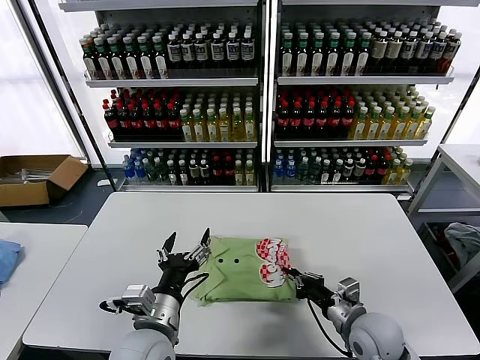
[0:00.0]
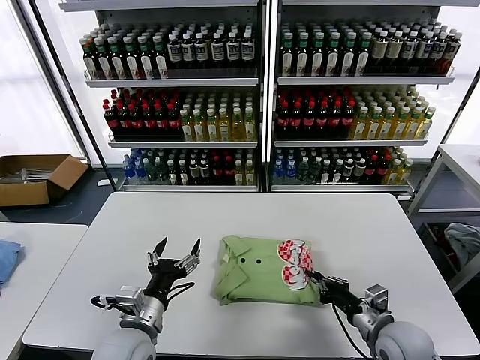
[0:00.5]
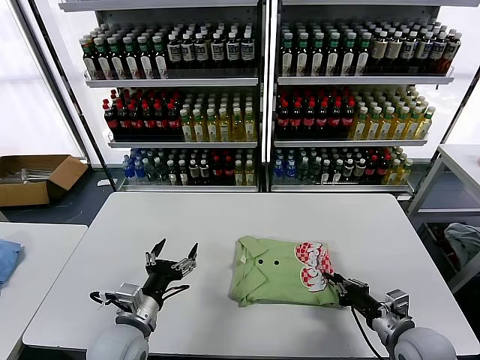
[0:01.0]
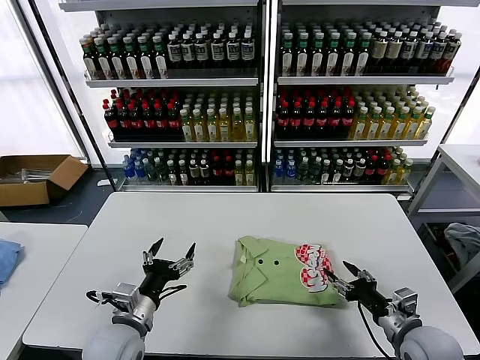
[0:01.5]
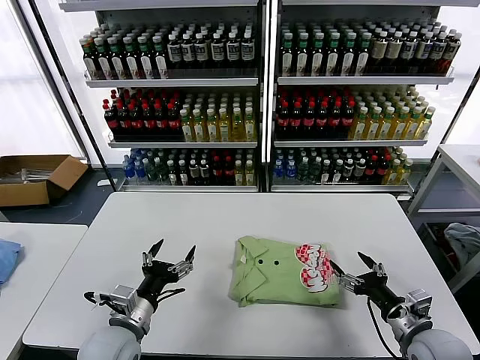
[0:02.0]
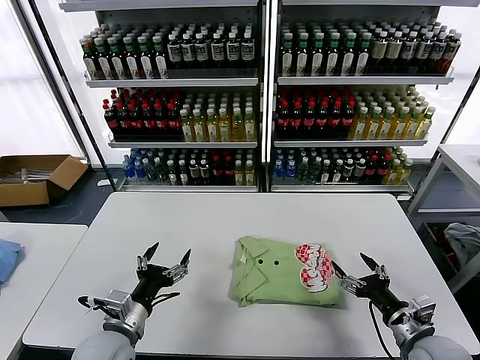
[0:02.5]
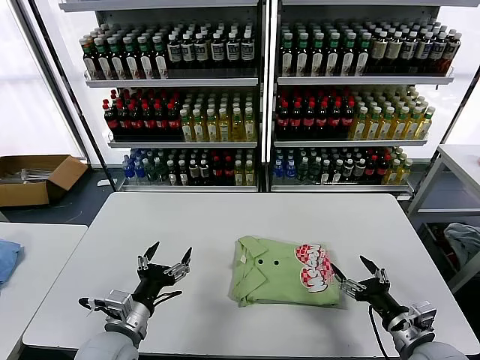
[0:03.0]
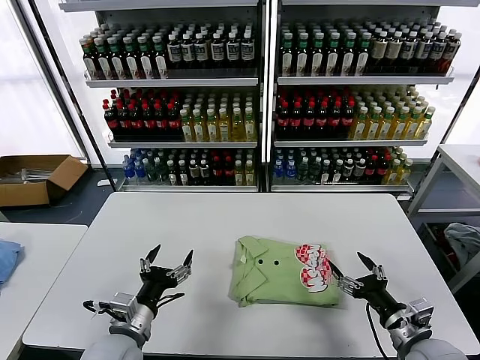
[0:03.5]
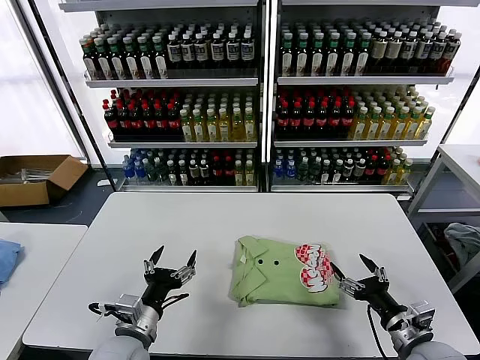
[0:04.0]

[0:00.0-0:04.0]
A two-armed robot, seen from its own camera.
Task of the whole recording: fold and organize the clothes.
0:00.0 to 0:02.0: The right gripper shifts approximately 10 cm to the right, and opens. Meanwhile the left gripper travels to the left by approximately 10 cm.
0:02.0 to 0:04.0: The grippers stay close to where they were, moving slightly.

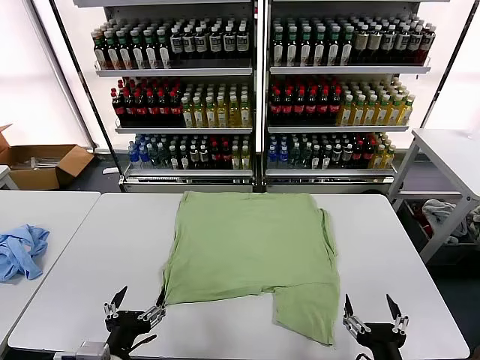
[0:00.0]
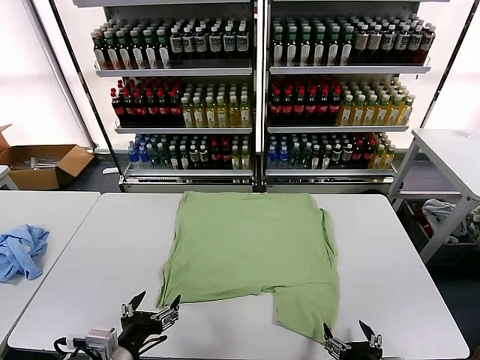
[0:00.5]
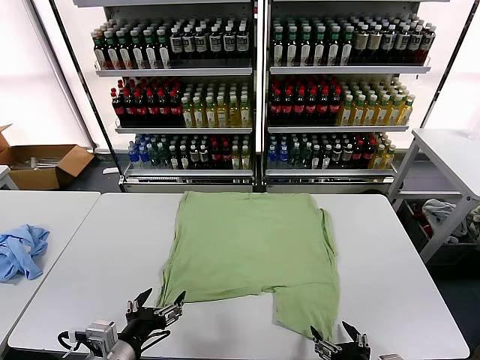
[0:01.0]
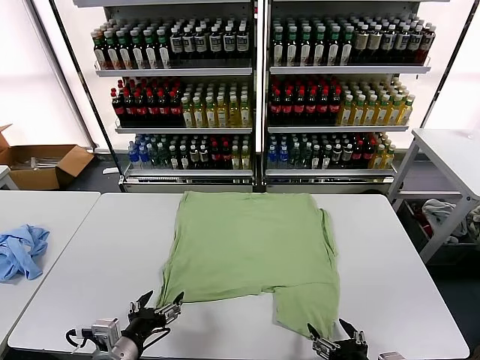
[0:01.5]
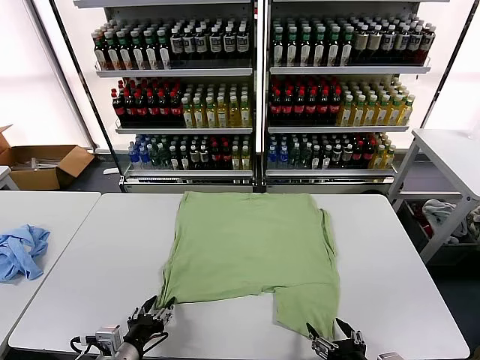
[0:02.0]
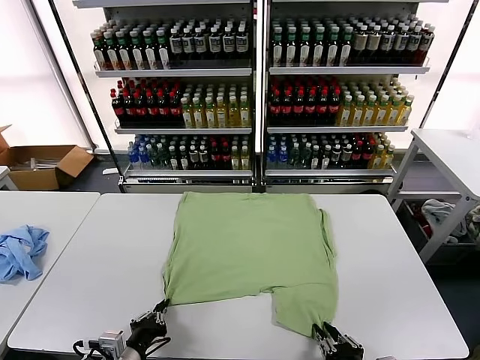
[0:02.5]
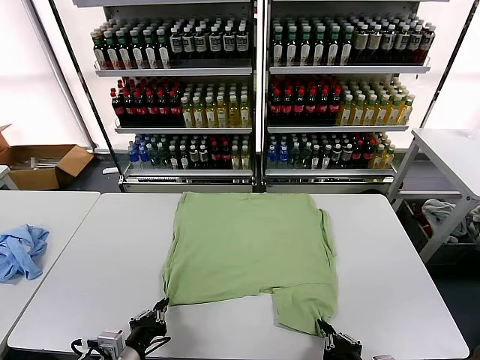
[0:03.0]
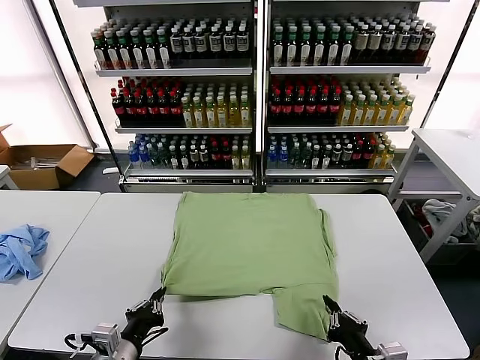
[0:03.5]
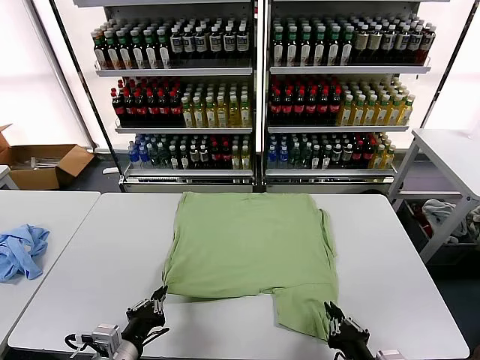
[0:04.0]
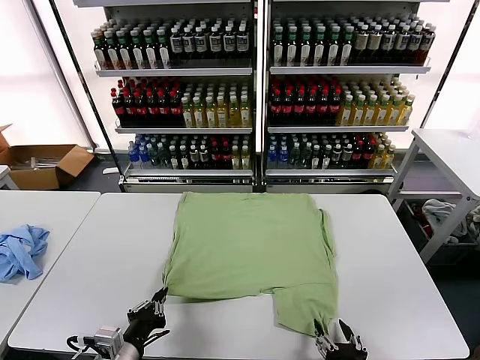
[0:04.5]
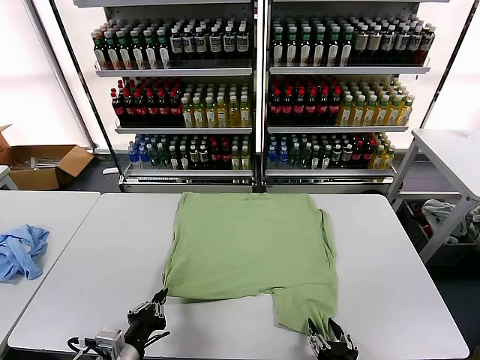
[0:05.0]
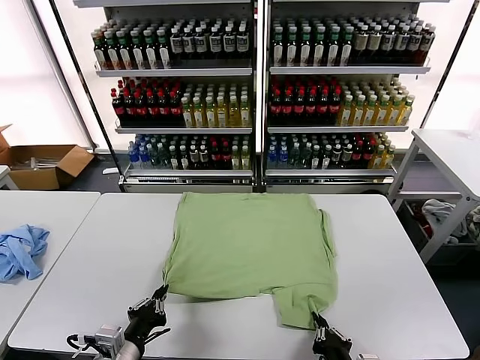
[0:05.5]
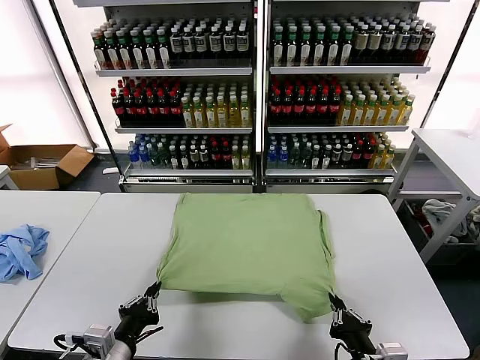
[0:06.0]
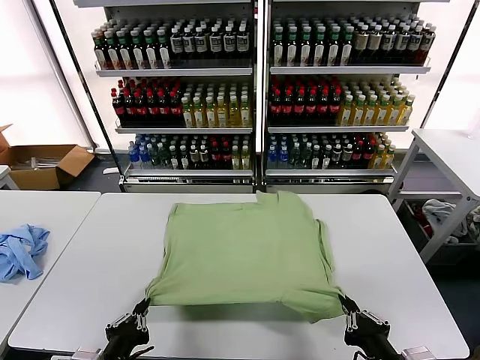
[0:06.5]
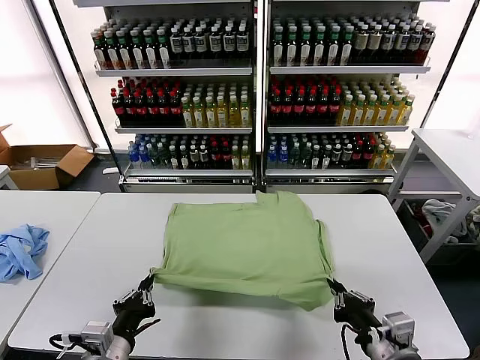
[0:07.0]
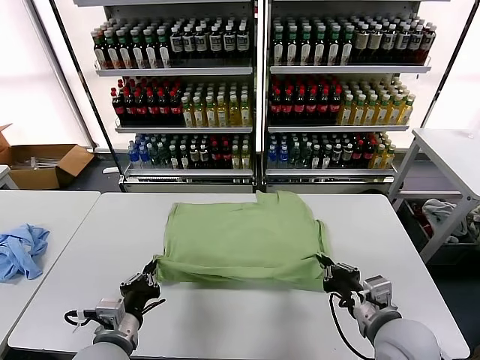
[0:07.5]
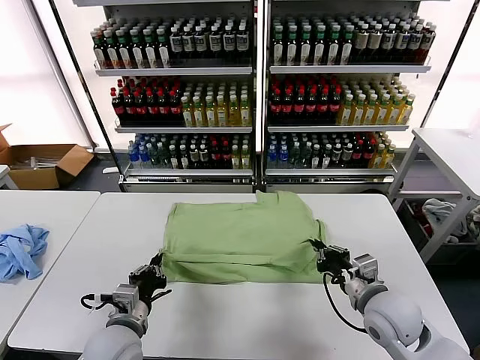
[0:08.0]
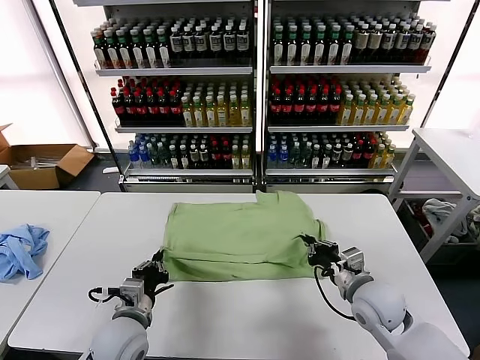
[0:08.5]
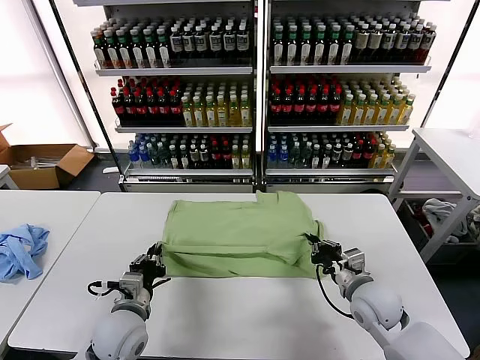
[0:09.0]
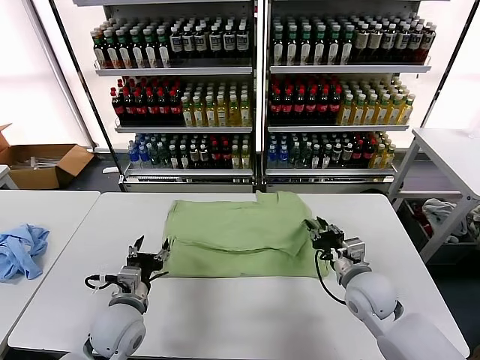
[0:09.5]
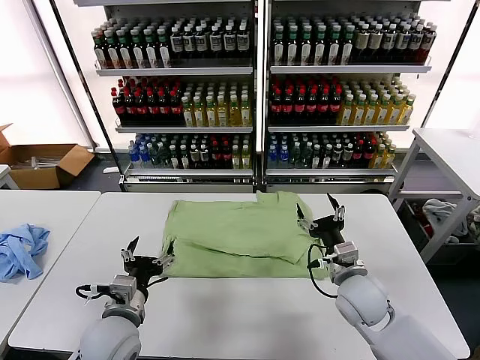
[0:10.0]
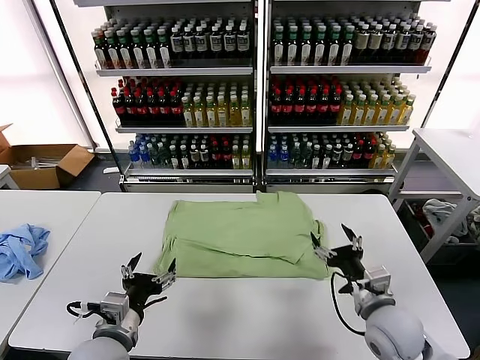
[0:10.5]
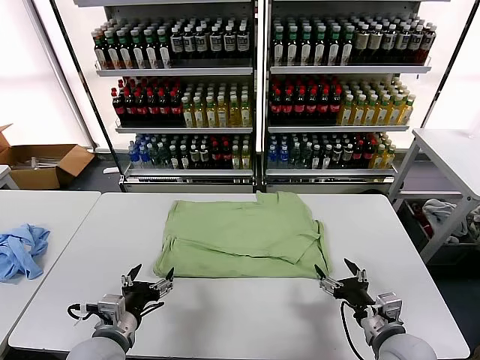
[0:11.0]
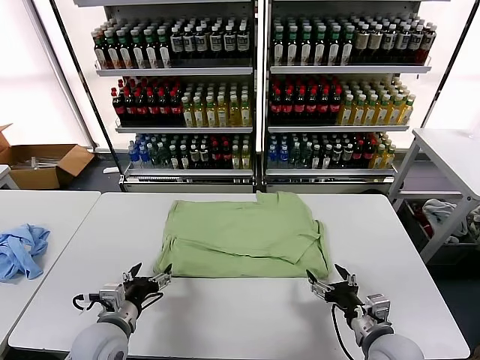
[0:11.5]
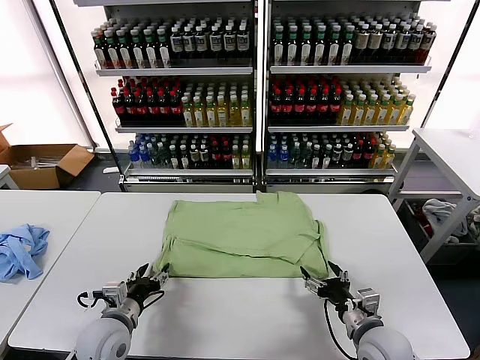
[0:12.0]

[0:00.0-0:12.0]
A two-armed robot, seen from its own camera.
Task of the whole recording: fold and organize the clothes.
Step, 0:00.0 to 0:02.5: use both grippers simultaneously to clamp the lower edge of the clothing fabric.
Step, 0:03.0 to 0:09.5: use both grippers to drag the lower edge of the fabric forward and fold it over the upper edge.
0:02.0 to 0:04.0: The left gripper closes up. Meanwhile the right gripper closes up.
0:04.0 to 0:06.0: The right gripper opens, then closes once more.
0:06.0 to 0:08.0: The left gripper moves forward, about 10 cm. The right gripper travels forward by some 15 cm.
0:08.0 to 0:10.0: The left gripper opens up. Meanwhile the right gripper changes place by some 5 cm, and opens.
0:10.0 to 0:12.0: The left gripper moves downward, approximately 5 cm. The right gripper moves backward and downward, approximately 10 cm.

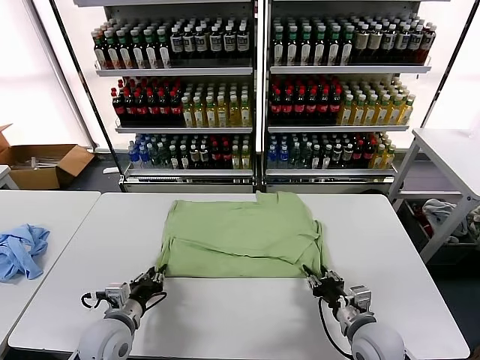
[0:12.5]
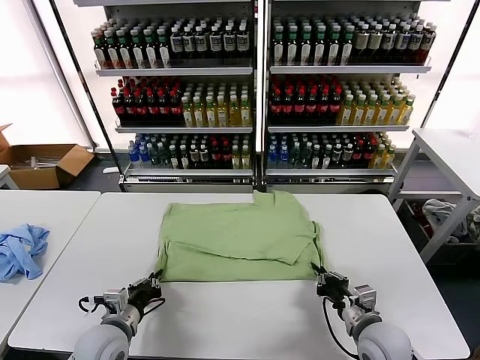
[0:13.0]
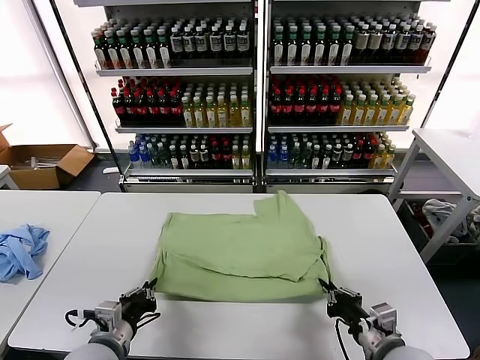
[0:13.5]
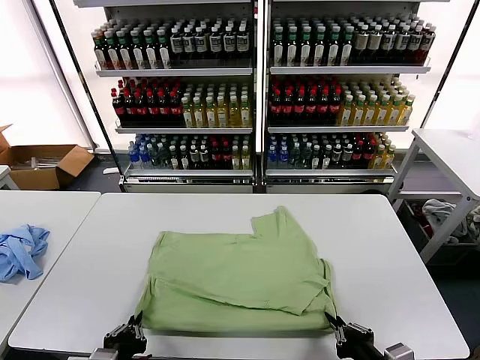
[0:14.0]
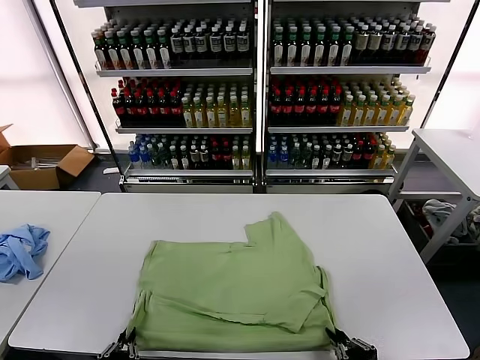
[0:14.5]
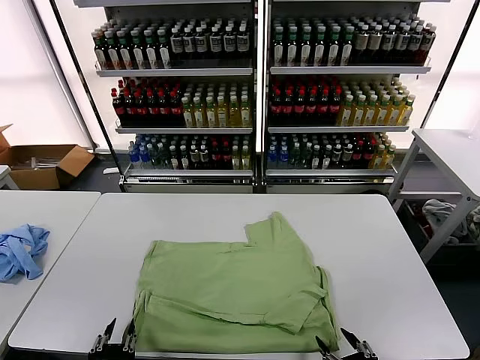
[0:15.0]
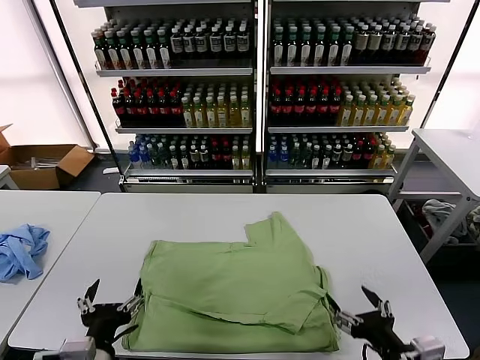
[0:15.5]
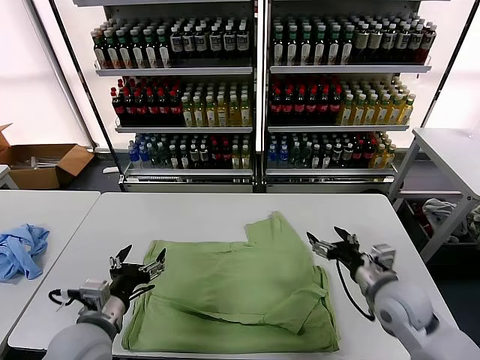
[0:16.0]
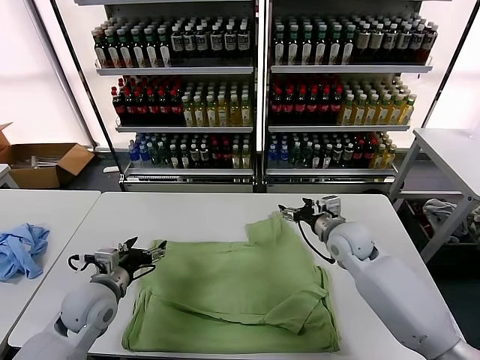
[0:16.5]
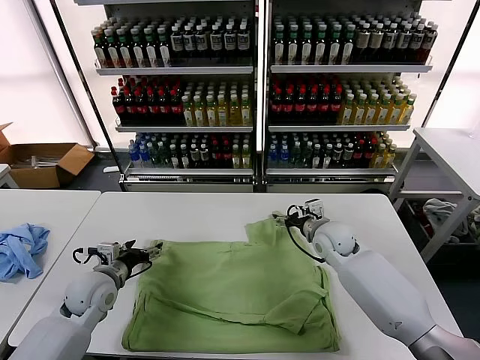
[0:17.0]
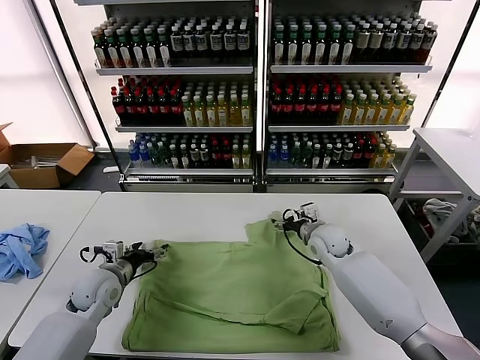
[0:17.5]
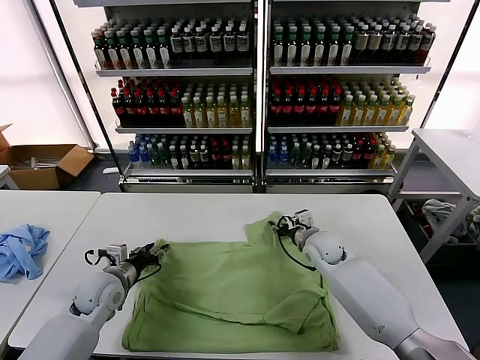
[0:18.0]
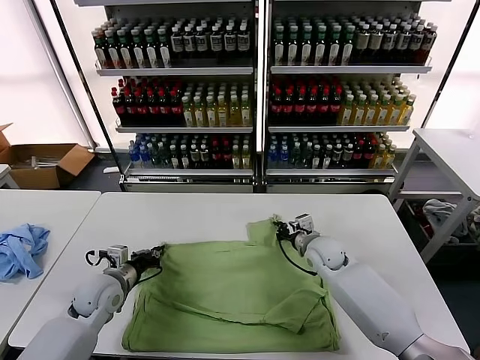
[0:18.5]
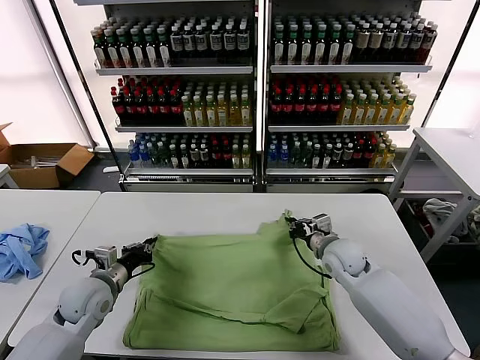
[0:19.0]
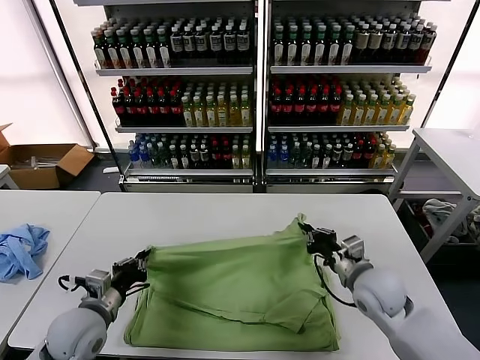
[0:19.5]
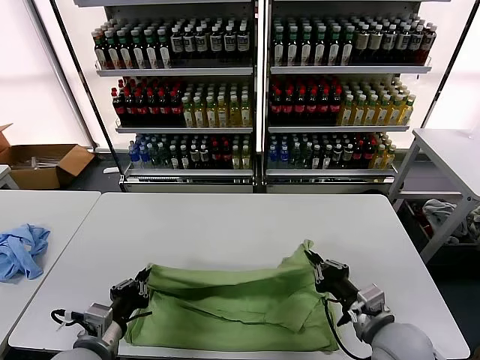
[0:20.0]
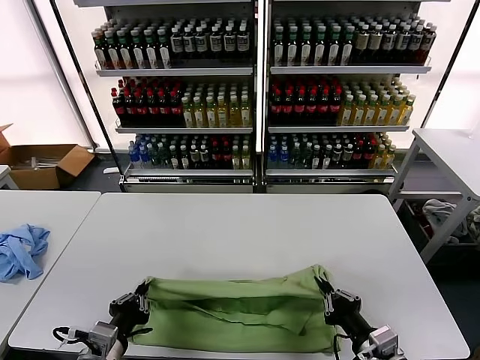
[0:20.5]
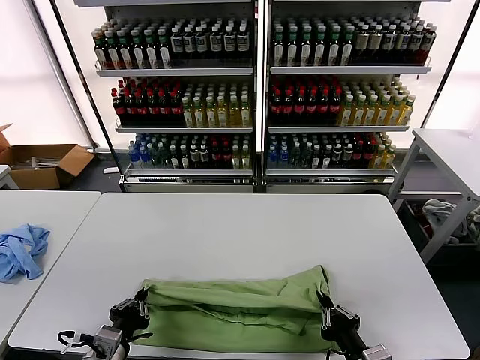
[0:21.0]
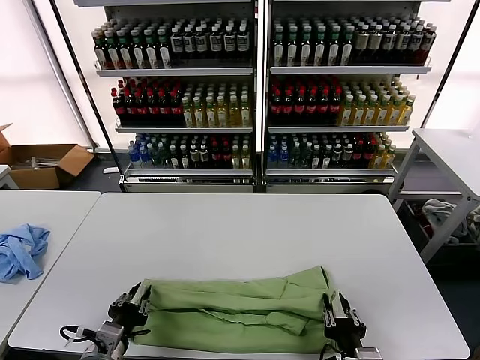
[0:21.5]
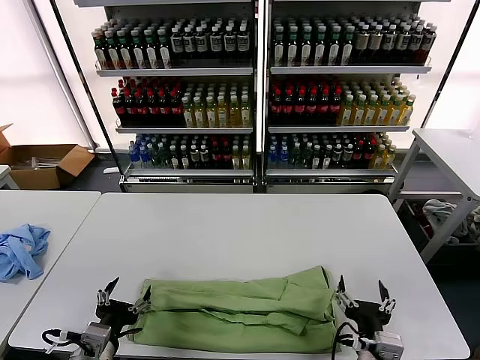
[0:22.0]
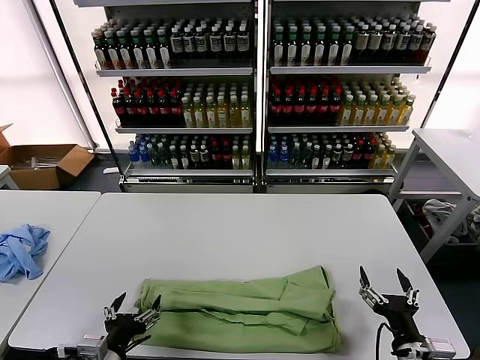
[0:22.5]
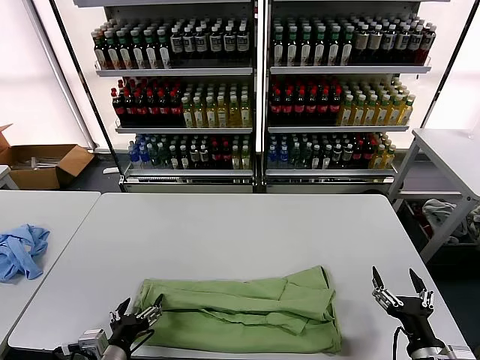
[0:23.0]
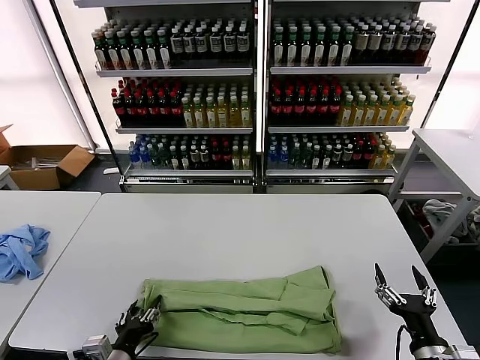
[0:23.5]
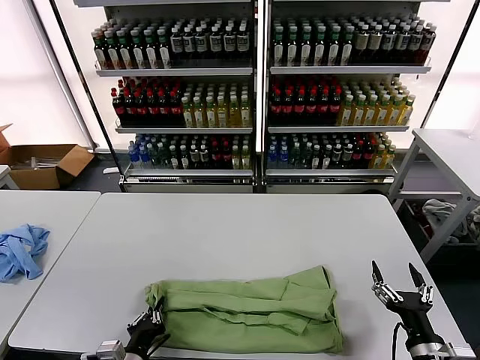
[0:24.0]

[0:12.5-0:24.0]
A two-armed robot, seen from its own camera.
Task of the whole recording: fold and organize the clothes.
Step, 0:12.5 to 0:14.5: Drag the clothes downward with both gripper.
Step, 0:15.0 to 0:18.5: use both grippers simultaneously to clamp the upper edge of the clothing fabric.
Step, 0:19.0 to 0:21.5: use both grippers to drag the upper edge of the fabric backward and fold it over the lower edge.
Step, 0:22.0 to 0:24.0: use the left gripper to clamp the left edge of the fabric.
0:12.5 to 0:14.5: Both grippers travel together backward, roughly 15 cm.
0:14.5 to 0:16.5: The left gripper is displaced forward by roughly 25 cm, and opens its fingers, while the right gripper heads forward, covering some 35 cm, and opens its fingers.
0:16.5 to 0:18.5: The left gripper moves some 5 cm, and closes its fingers. The right gripper moves downward, some 10 cm, and closes.
0:18.5 to 0:20.0: The two grippers go some 20 cm backward.
0:20.0 to 0:22.0: The right gripper moves backward and to the left, approximately 10 cm, and opens; the left gripper opens.
0:22.0 to 0:24.0: The left gripper heads downward, covering about 5 cm, and closes its fingers, while the right gripper heads to the right, covering roughly 10 cm.
